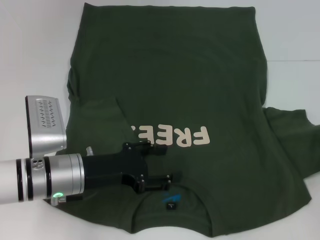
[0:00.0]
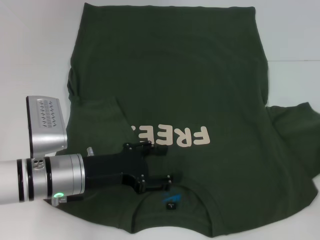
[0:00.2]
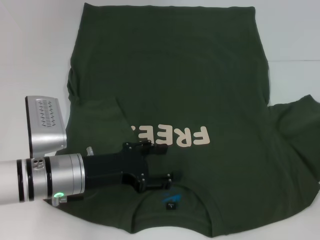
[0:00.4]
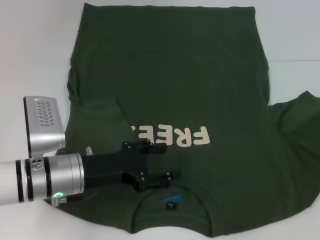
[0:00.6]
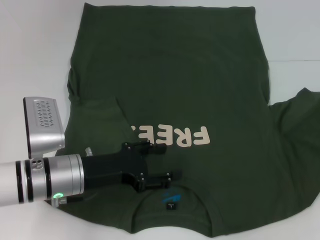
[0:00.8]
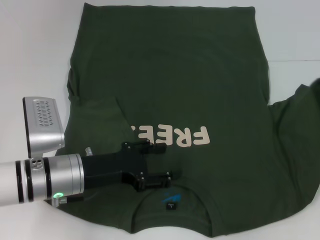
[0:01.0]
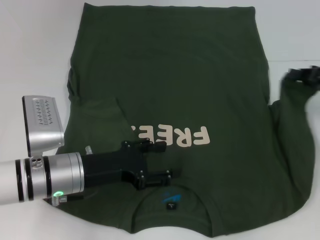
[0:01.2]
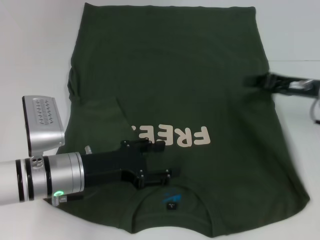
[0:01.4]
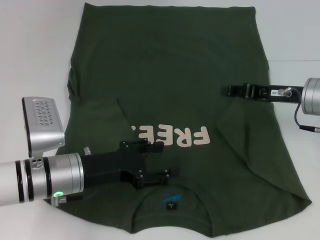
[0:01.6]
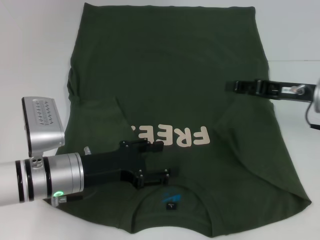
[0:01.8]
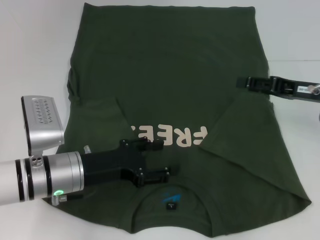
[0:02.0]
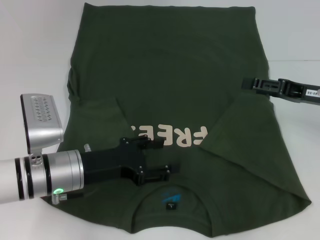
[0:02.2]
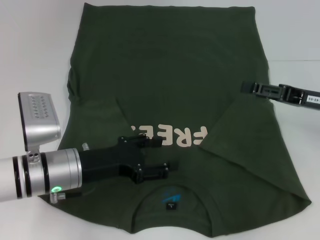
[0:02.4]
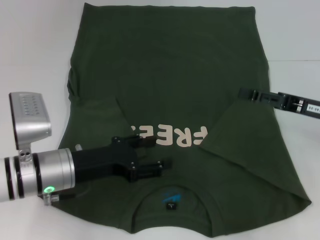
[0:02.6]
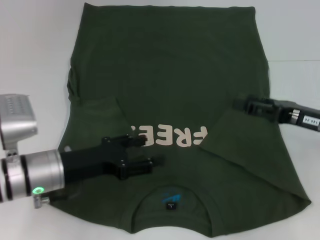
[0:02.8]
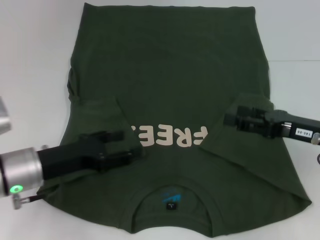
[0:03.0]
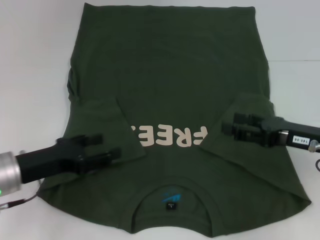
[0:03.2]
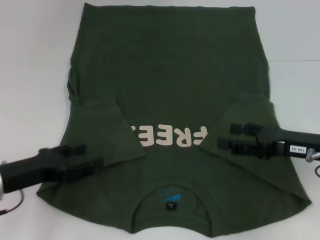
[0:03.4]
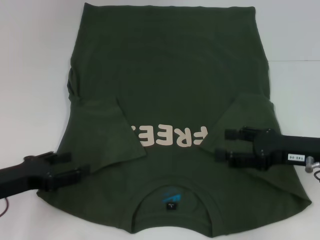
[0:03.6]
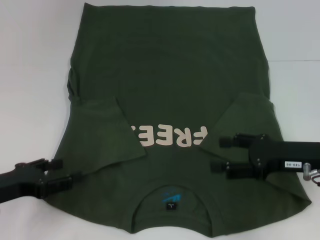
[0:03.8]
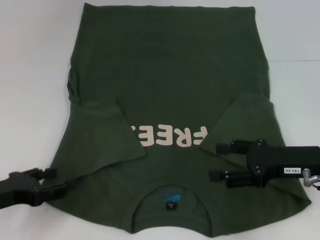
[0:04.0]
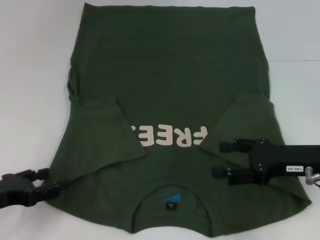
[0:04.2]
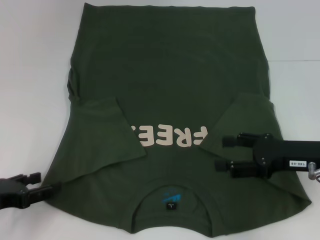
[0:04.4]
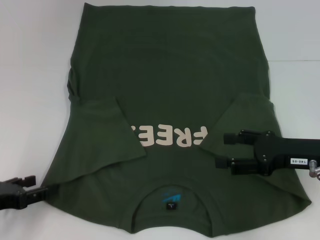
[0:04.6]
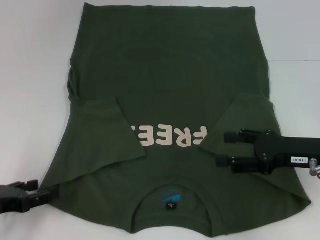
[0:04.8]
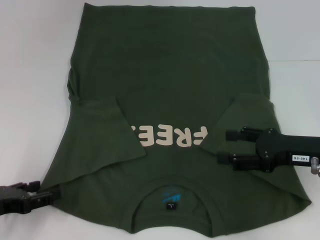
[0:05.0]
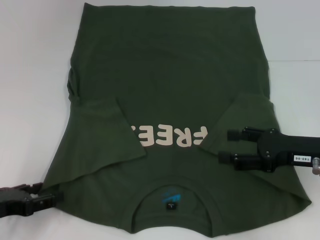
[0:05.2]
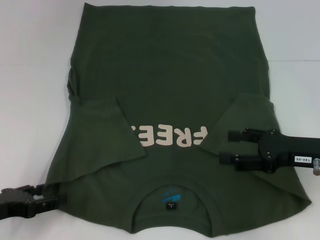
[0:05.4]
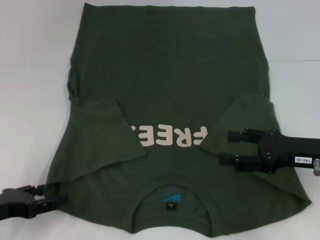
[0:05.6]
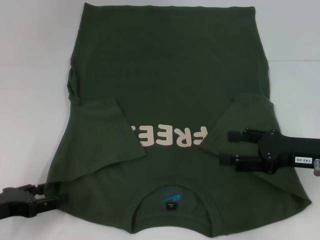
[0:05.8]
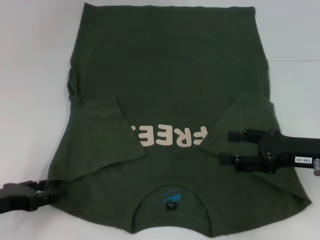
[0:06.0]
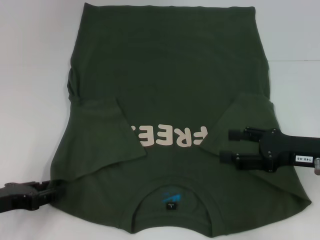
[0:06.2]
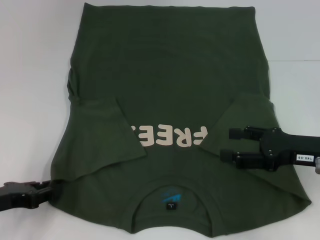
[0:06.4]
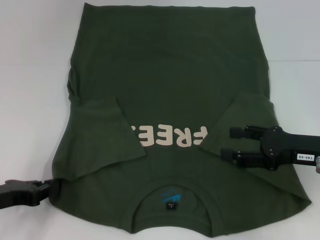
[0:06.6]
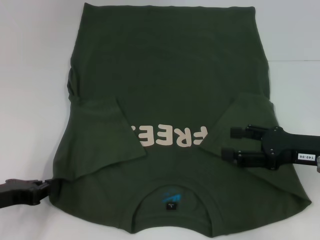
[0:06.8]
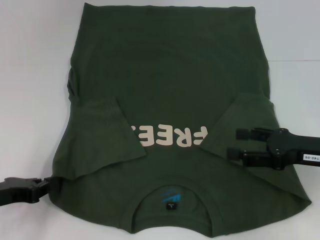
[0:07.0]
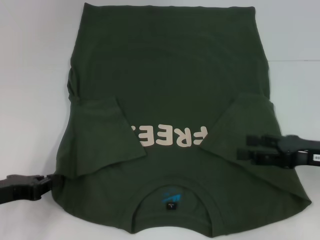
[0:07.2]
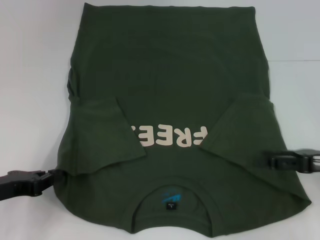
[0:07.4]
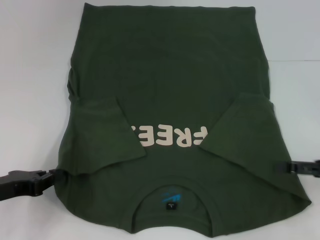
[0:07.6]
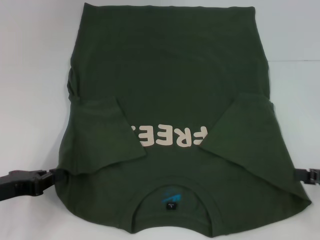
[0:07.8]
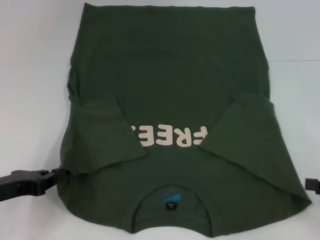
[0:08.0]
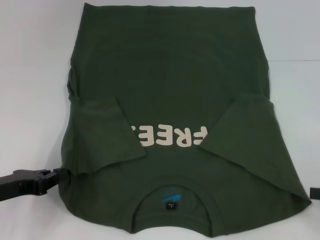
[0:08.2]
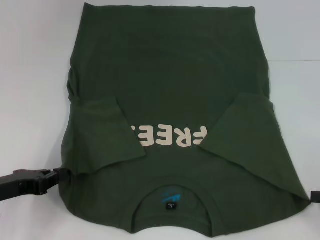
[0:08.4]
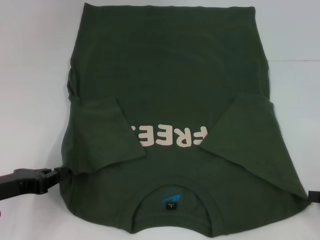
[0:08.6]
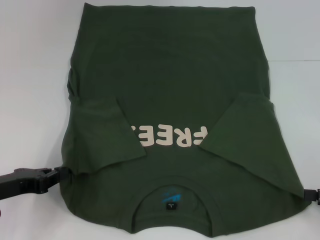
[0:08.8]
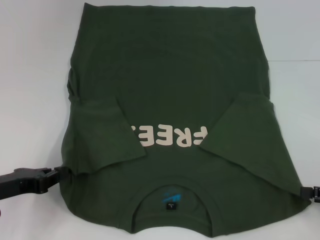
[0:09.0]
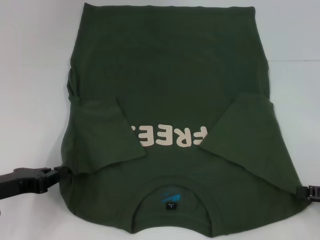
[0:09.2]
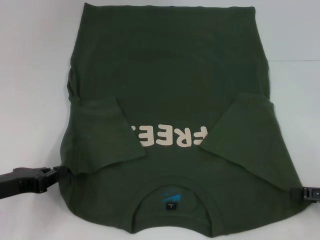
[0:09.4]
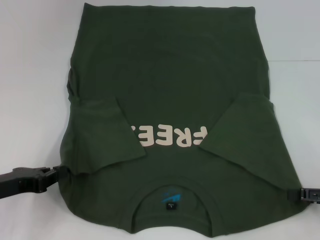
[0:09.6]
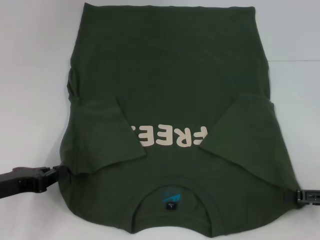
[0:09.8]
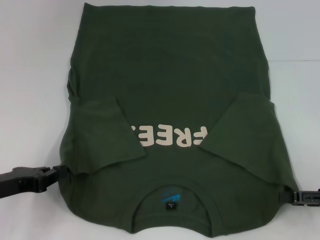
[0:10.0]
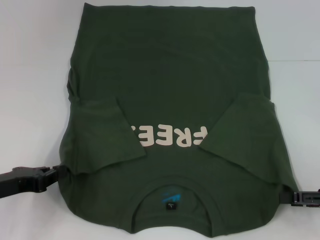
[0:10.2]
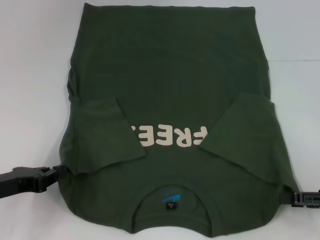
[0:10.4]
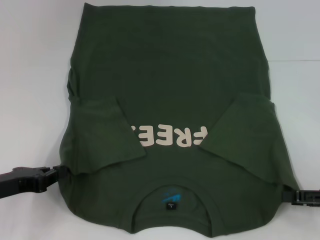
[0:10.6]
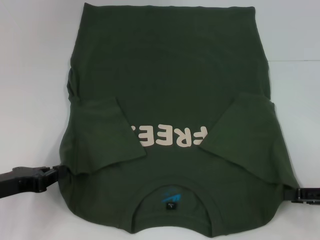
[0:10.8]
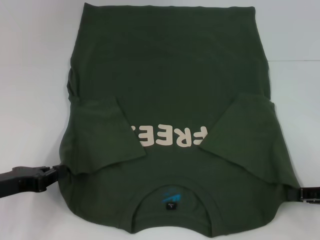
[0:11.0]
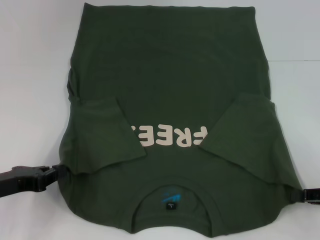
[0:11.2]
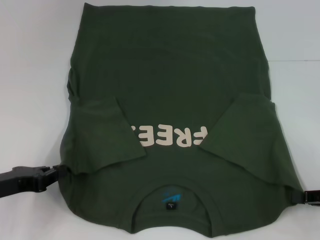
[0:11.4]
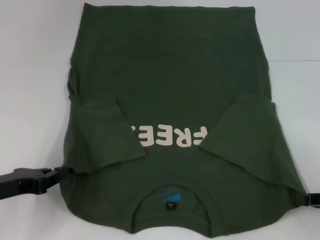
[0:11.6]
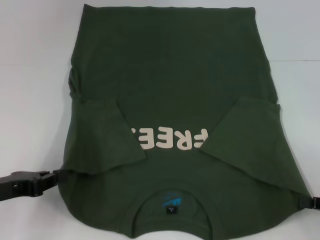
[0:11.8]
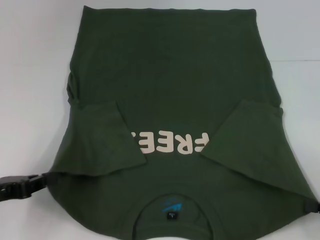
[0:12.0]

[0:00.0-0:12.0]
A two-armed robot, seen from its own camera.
Step, 0:02.0 to 0:07.2: Grab the bottom left corner with your left hand.
Step, 0:07.4 to 0:11.6: Grab the bottom right corner with your right hand.
0:00.0 to 0:01.6: The right gripper travels to the left and forward by about 15 cm.
0:01.6 to 0:03.0: The left gripper is displaced to the left by some 5 cm. The right gripper shifts roughly 5 cm backward, and opens up.
0:03.0 to 0:04.4: The left gripper travels to the left and backward by about 10 cm.
0:04.4 to 0:06.0: Both grippers stay put.
0:06.0 to 0:07.6: The left gripper closes, while the right gripper moves to the right, approximately 10 cm.
0:07.6 to 0:09.0: The right gripper shifts by some 5 cm.
0:09.0 to 0:10.4: The grippers stay close to where they were, moving slightly.
0:10.4 to 0:12.0: The right gripper closes up.

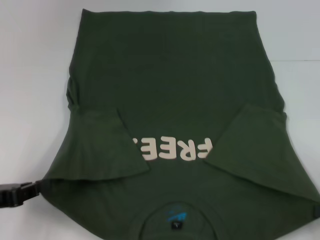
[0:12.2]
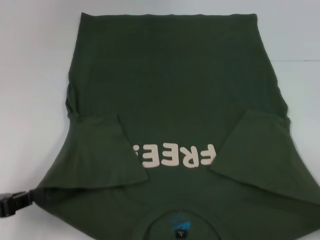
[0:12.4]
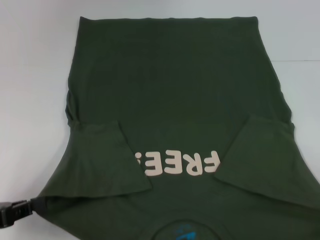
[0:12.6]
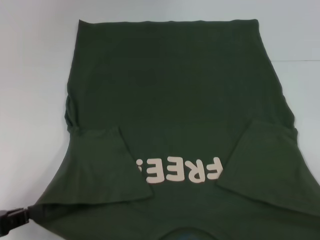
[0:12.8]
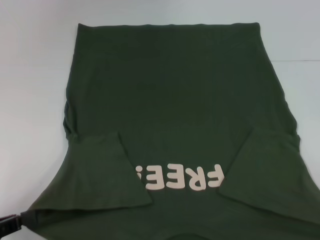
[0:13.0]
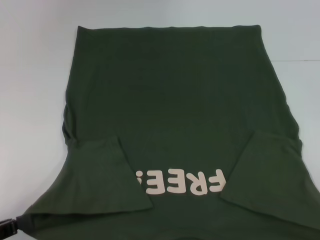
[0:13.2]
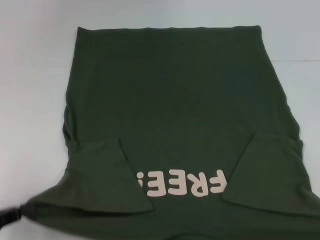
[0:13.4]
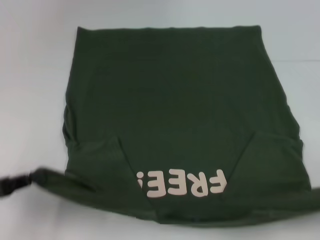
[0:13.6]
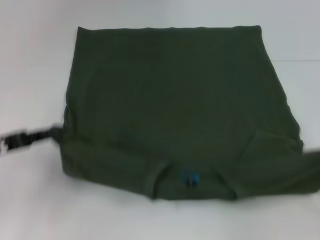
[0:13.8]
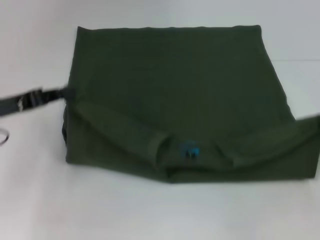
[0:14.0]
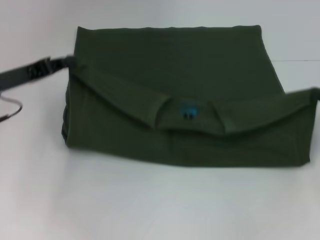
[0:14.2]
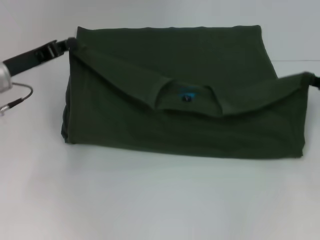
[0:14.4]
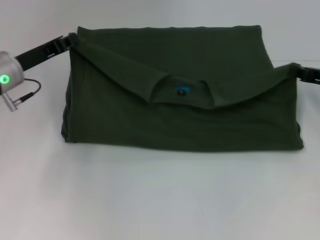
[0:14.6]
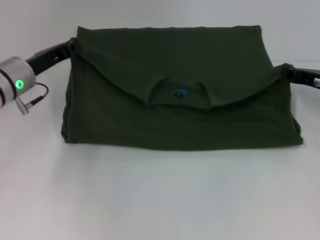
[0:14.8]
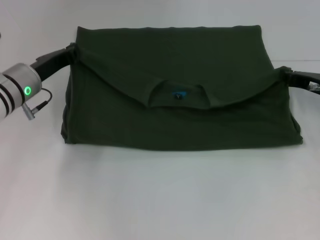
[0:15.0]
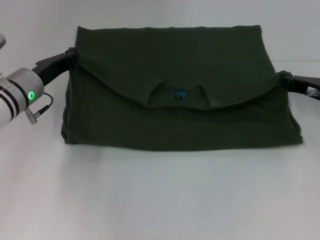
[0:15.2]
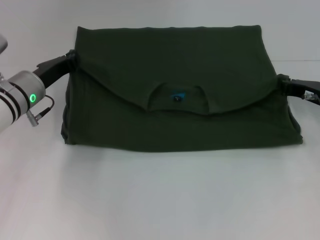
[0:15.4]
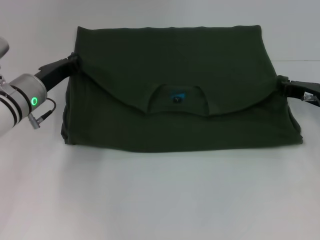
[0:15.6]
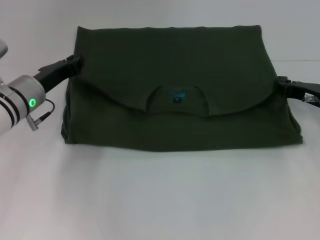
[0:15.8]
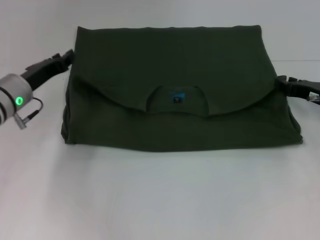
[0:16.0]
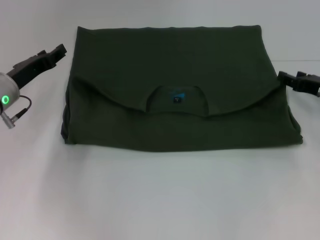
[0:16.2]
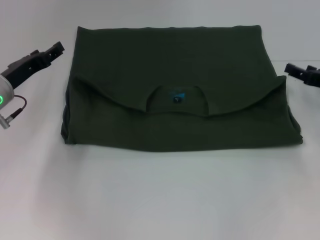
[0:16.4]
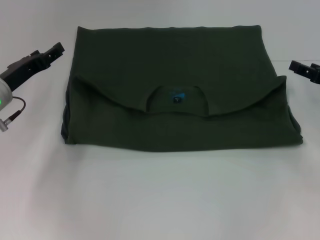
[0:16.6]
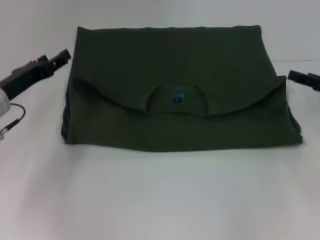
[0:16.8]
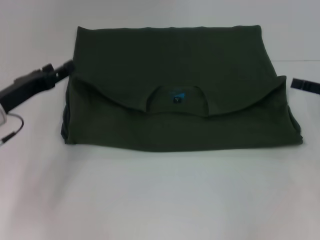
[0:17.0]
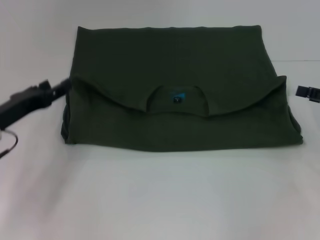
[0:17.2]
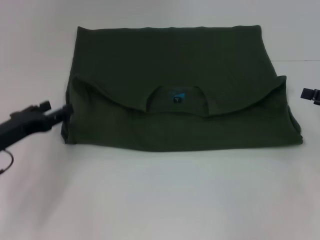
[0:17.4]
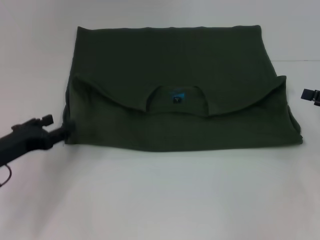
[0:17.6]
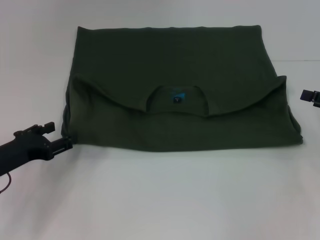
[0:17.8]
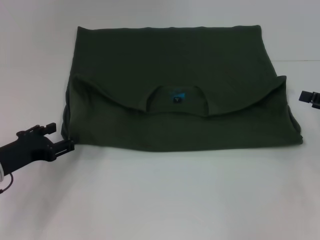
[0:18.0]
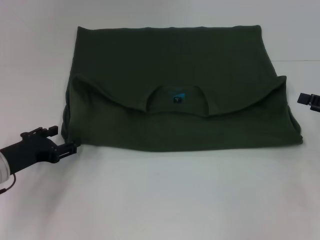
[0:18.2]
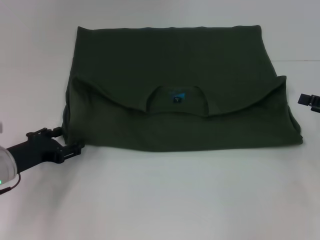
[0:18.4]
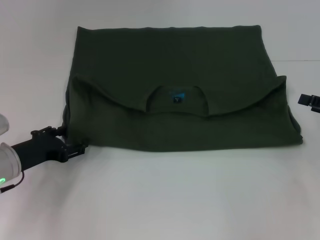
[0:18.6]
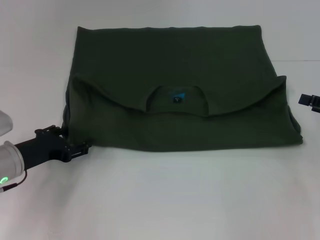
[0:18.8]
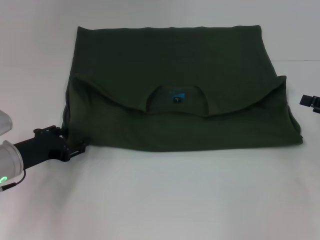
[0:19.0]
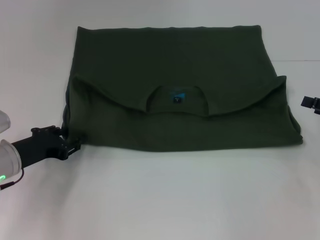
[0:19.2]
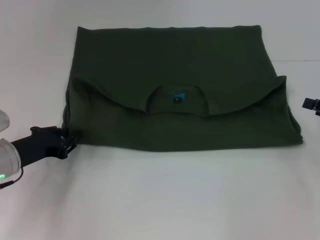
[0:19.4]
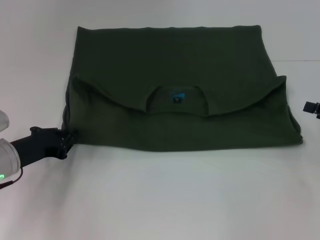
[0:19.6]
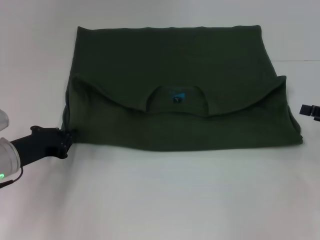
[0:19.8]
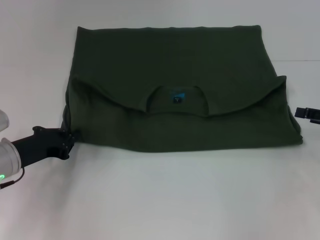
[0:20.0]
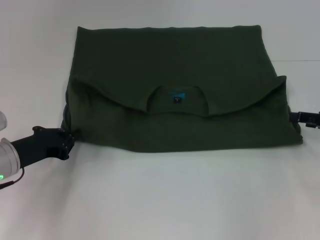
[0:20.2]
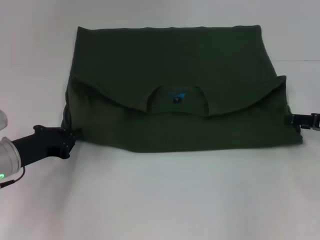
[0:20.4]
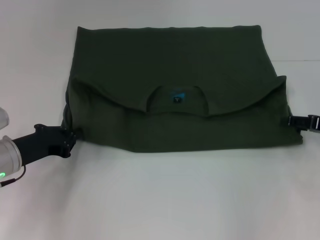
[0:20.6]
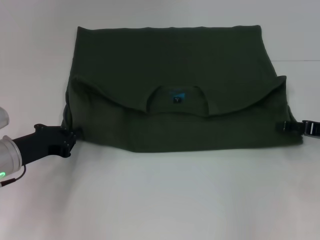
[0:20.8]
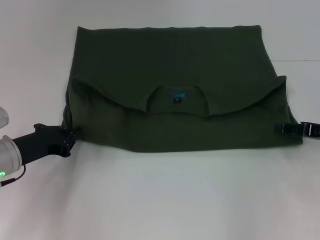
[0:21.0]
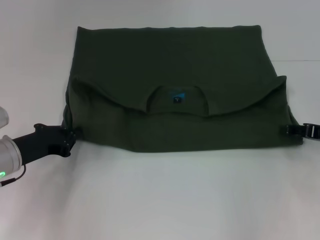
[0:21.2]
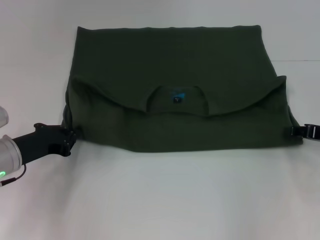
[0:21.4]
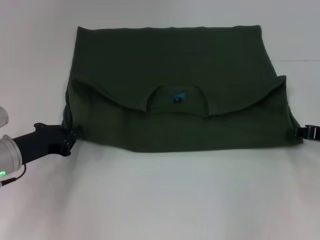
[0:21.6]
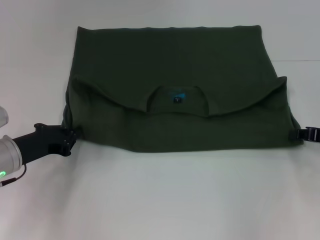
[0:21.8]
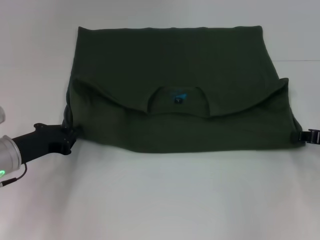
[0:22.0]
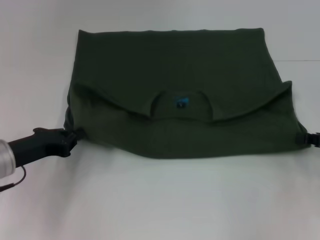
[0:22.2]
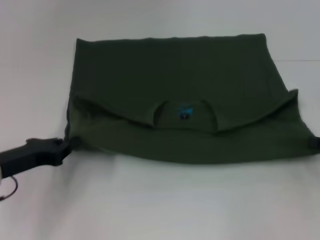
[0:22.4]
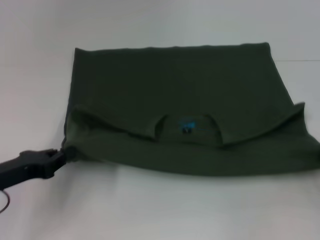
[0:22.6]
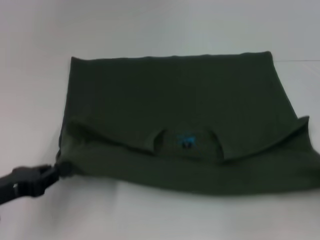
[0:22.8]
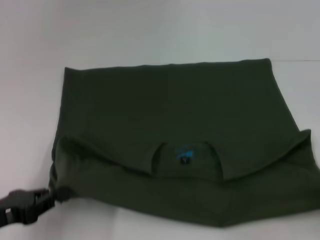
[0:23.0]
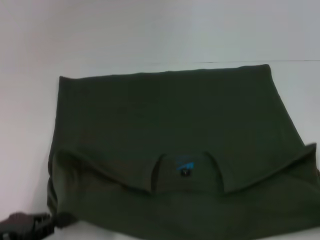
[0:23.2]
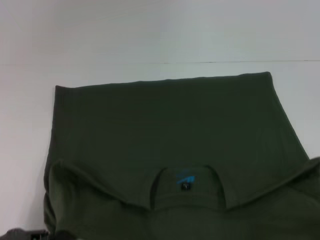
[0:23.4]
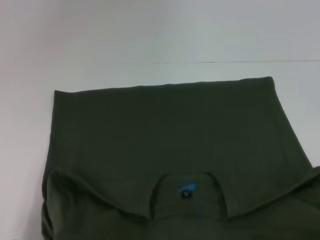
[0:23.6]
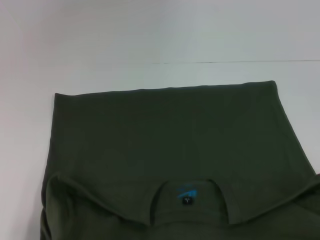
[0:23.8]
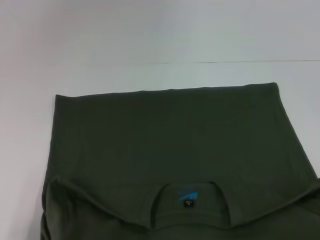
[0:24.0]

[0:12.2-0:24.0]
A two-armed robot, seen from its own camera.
Step, 0:12.2 to 0:15.8: Fold the clothes with your left hand.
Step, 0:12.2 to 0:15.8: Fold the clothes with your right hand.
Step, 0:16.0 to 0:23.6: Pull the clothes with your left hand.
Step, 0:16.0 to 0:23.6: Pull the clothes with your right hand.
0:13.6 to 0:15.2: The left gripper heads forward and to the right, covering roughly 25 cm; the right gripper is displaced forward and to the left by some 25 cm.
0:15.2 to 0:16.6: The right gripper ends up approximately 5 cm from where it was, and opens its fingers, while the left gripper shifts by approximately 5 cm, and opens up.
0:16.6 to 0:18.2: The left gripper goes approximately 10 cm backward and downward. Meanwhile the right gripper heads backward, covering about 5 cm.
0:18.2 to 0:19.6: The left gripper closes its fingers.
0:19.6 to 0:21.0: The right gripper moves roughly 5 cm.
0:21.0 to 0:22.6: The right gripper travels backward and to the right by approximately 10 cm, and closes up. Meanwhile the left gripper heads backward, covering roughly 5 cm.
0:22.6 to 0:24.0: Both grippers move backward, some 10 cm.
